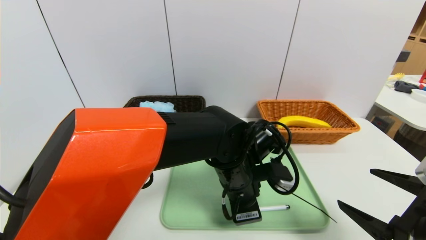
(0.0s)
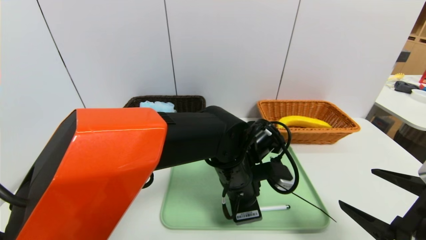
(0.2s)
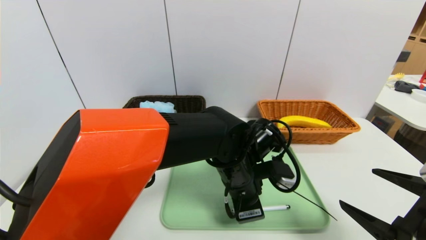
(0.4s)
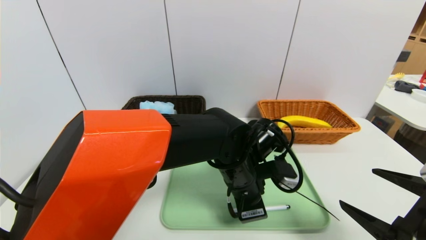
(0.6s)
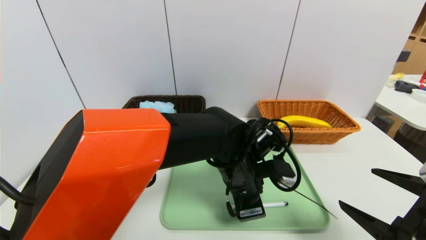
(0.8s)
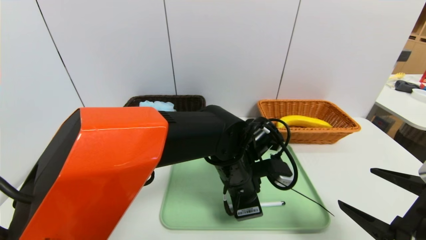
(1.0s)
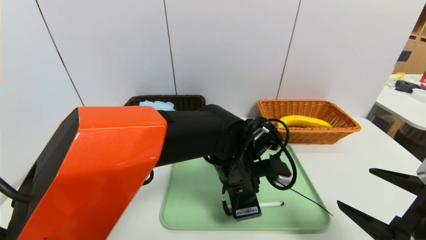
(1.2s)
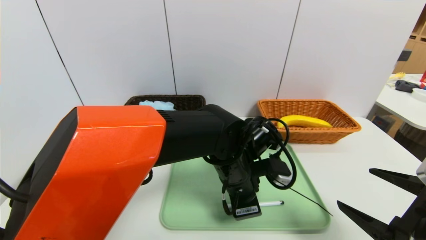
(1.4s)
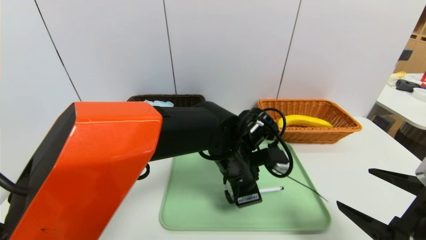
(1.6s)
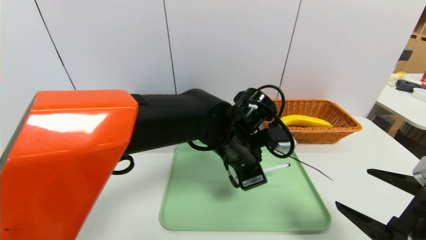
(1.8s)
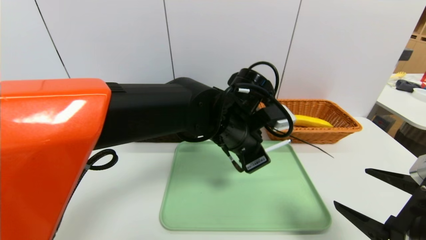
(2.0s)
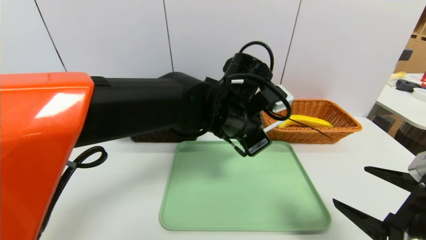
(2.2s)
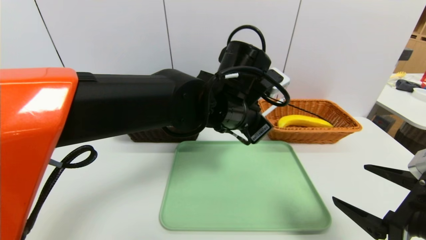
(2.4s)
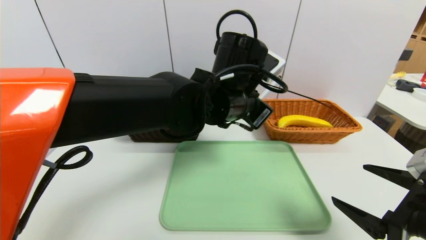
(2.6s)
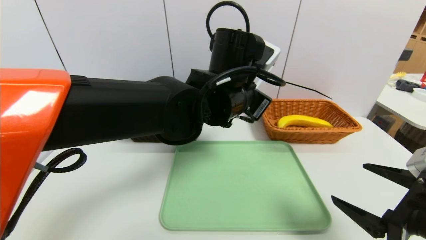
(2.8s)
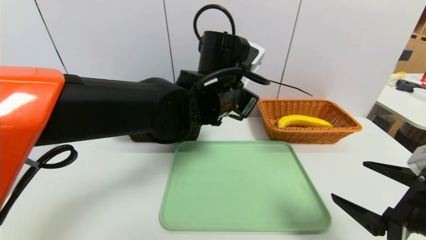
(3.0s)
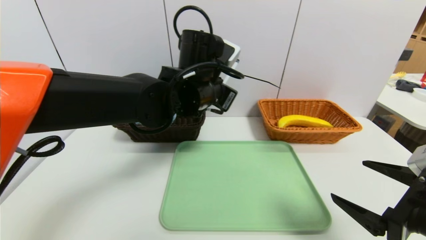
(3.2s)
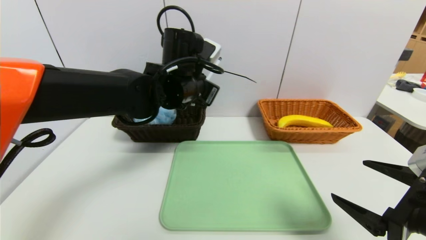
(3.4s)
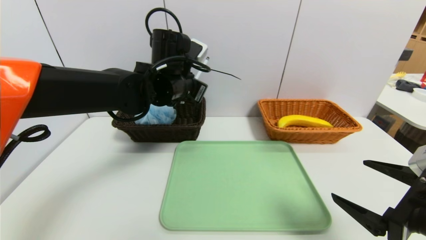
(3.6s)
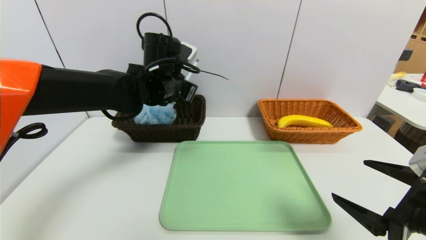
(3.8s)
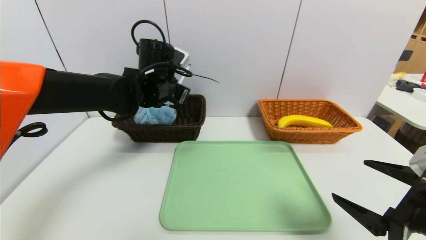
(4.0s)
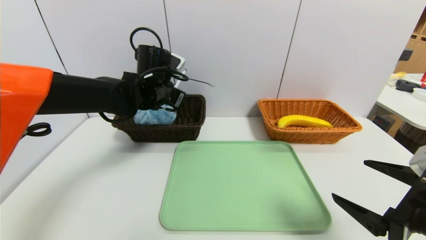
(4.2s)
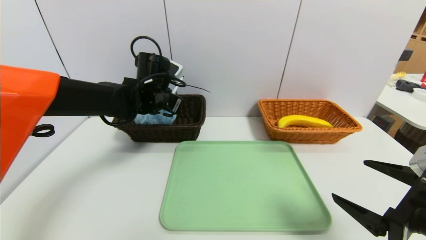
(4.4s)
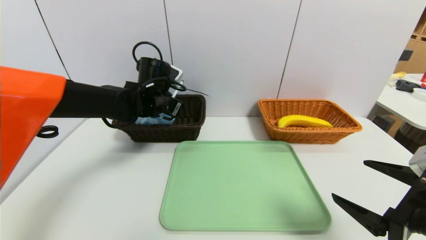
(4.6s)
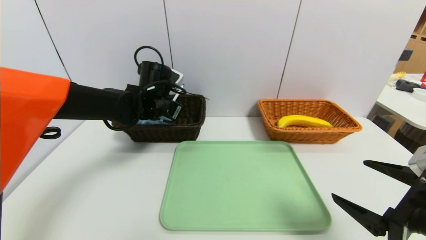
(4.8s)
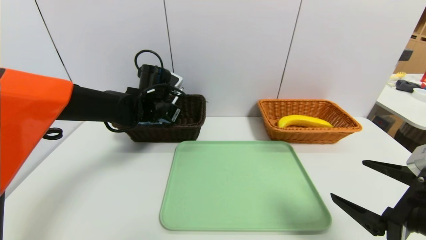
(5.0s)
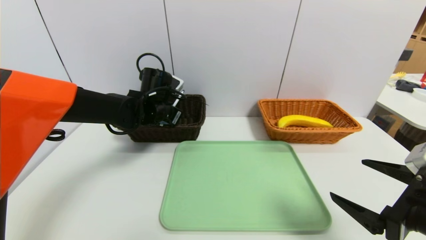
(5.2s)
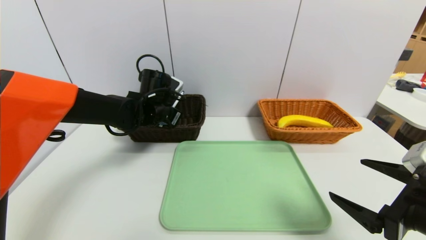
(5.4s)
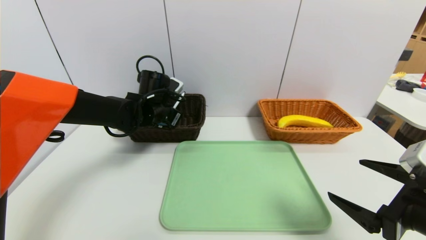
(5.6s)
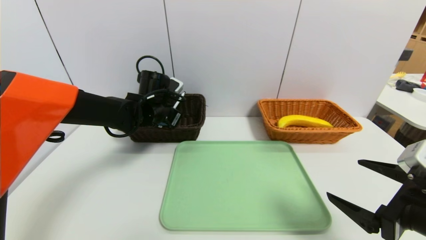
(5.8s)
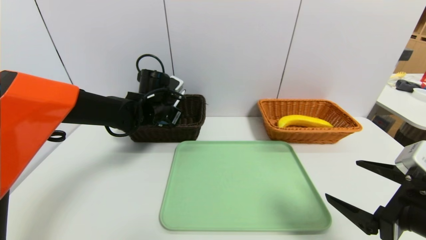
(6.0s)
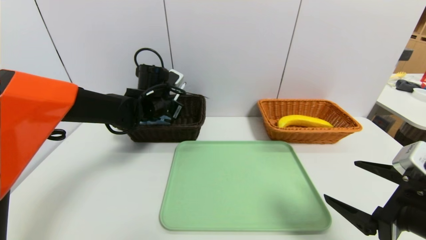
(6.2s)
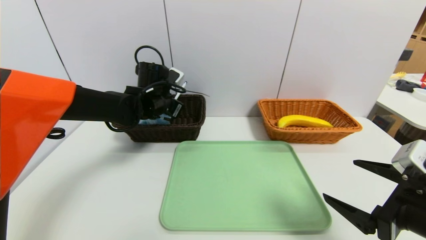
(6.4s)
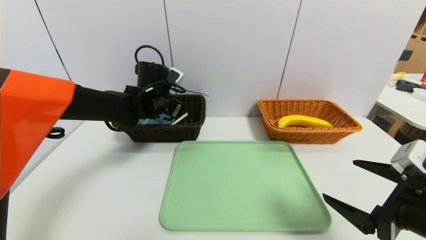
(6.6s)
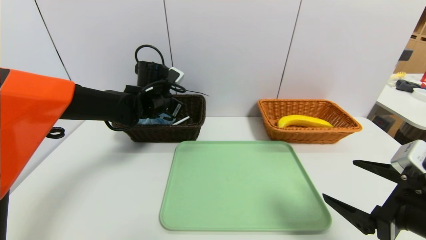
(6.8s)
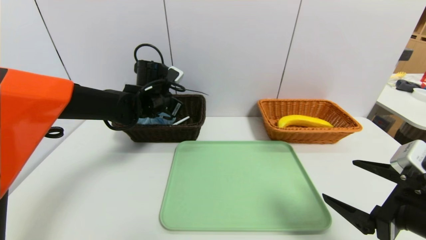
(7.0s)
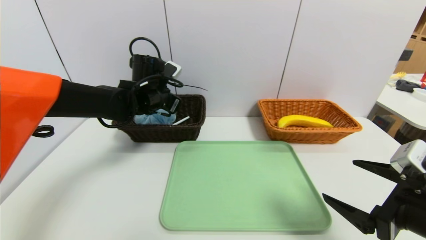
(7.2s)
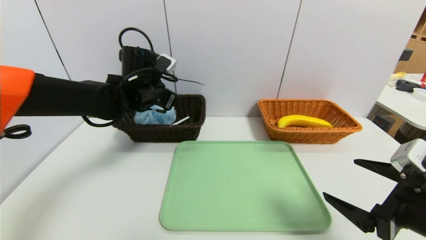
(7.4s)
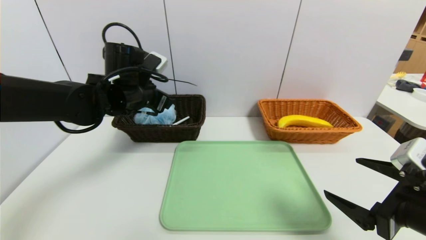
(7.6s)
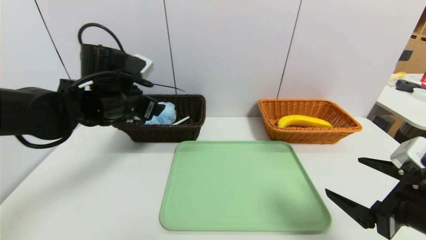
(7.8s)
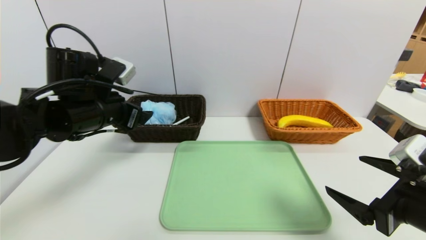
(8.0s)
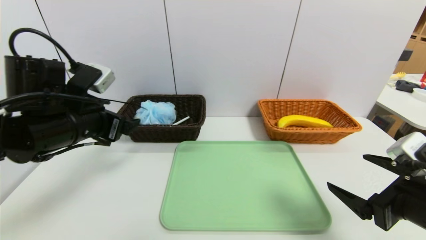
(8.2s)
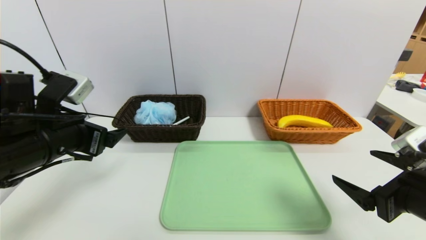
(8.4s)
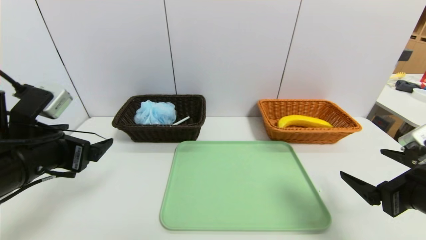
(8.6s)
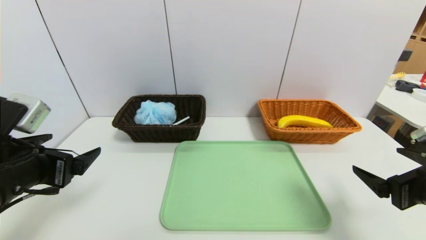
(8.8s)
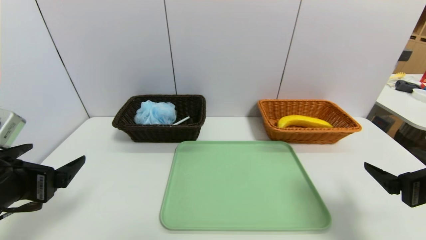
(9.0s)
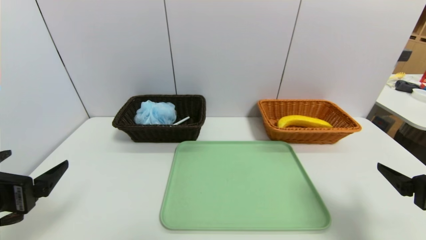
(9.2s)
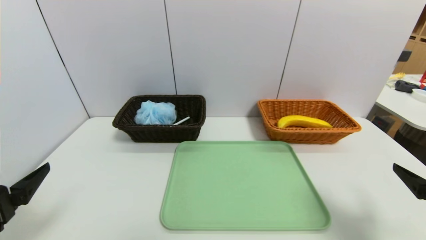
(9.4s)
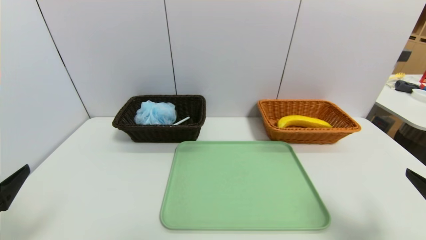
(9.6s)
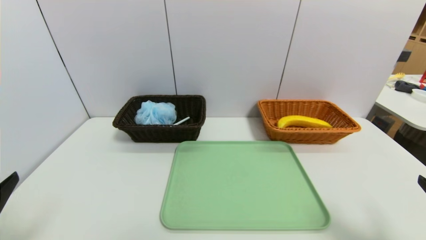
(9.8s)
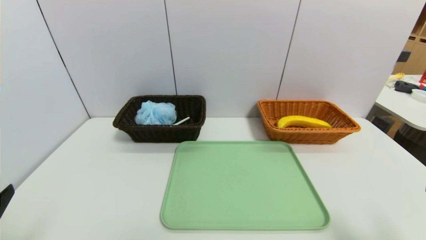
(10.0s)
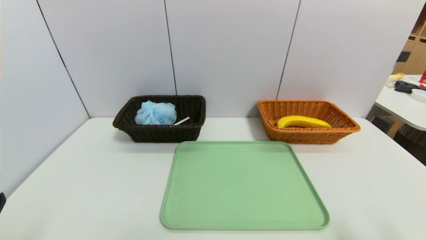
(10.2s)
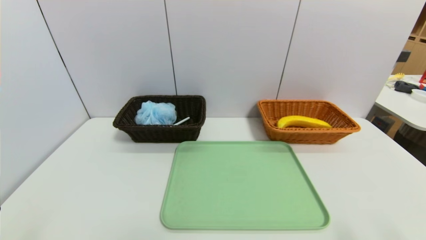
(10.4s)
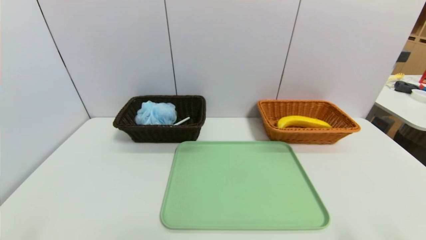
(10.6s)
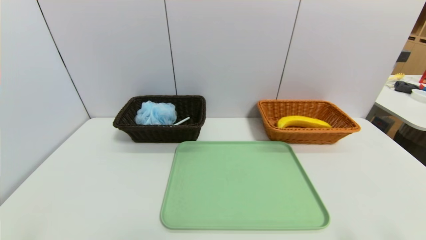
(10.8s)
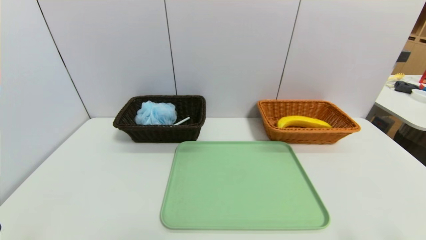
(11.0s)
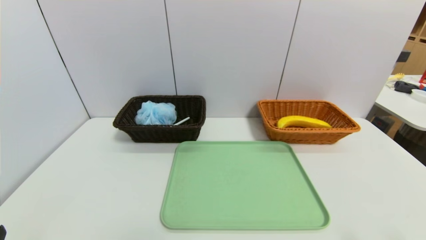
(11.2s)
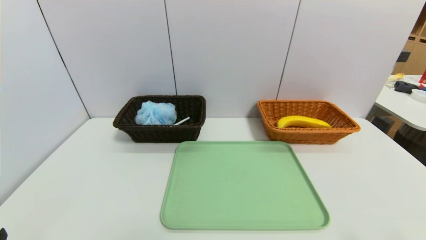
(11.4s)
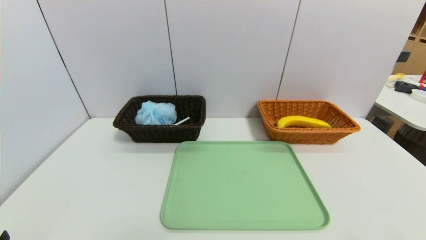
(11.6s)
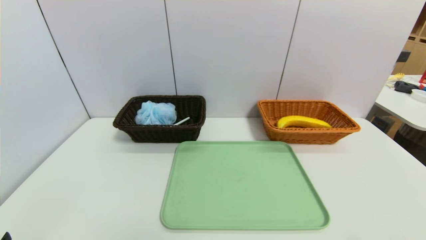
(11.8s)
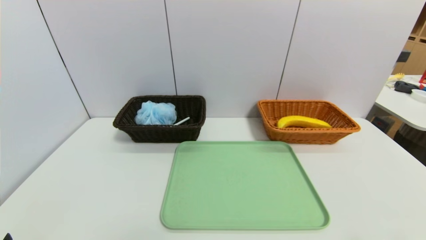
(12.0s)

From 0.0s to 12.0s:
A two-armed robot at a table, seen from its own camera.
Task of the whole recording: place the food in the right basket with the right gripper, and place the non food items in the left basket with the left gripper.
Step, from 0.0s to 7.0s: Grasp the black marker and put it in the left basket.
From 0.0s to 1.6s: The left gripper closes its fingers.
From 1.6s to 3.0s: The left gripper heads upward, covering roughly 10 cm.
From 3.0s to 4.4s: The left gripper shifts some 15 cm to the left and forward.
From 4.4s to 6.0s: There are only small adjustments of the grippers.
From 6.0s to 7.6s: The left gripper travels upward and backward by about 10 cm, and opens up.
From 7.6s to 9.0s: The left gripper is displaced backward and to the left by roughly 25 cm.
From 9.0s to 10.4s: The two grippers go approximately 10 cm backward.

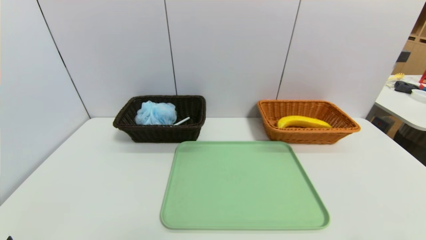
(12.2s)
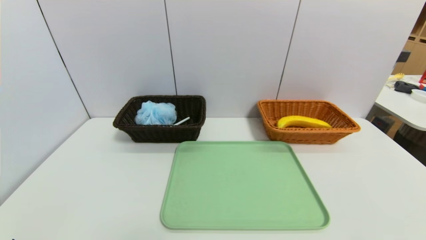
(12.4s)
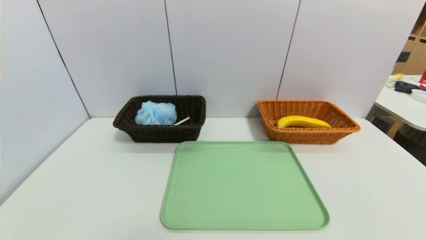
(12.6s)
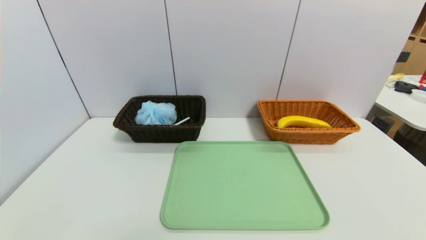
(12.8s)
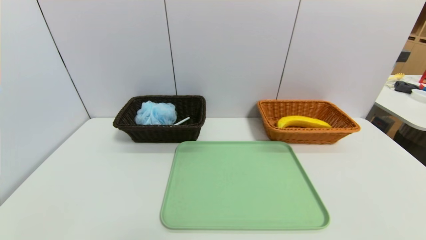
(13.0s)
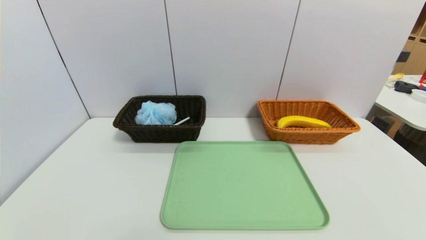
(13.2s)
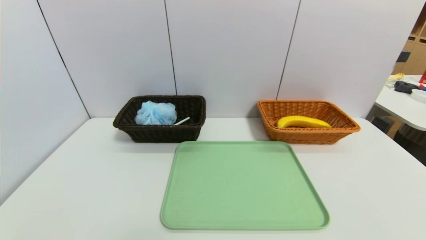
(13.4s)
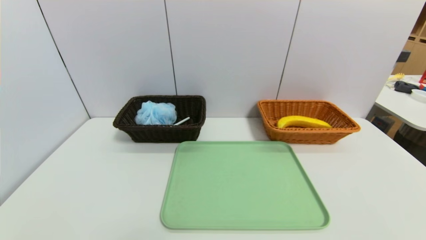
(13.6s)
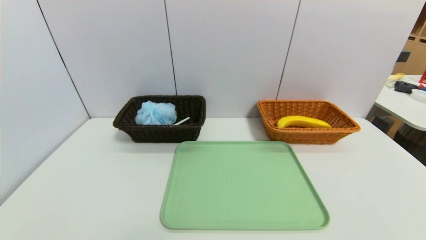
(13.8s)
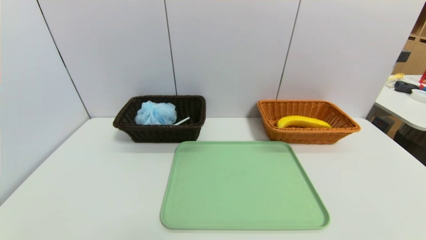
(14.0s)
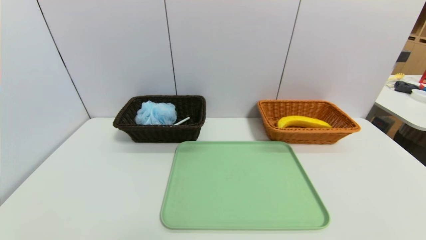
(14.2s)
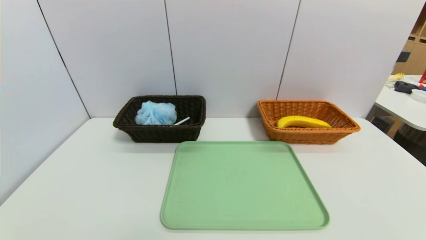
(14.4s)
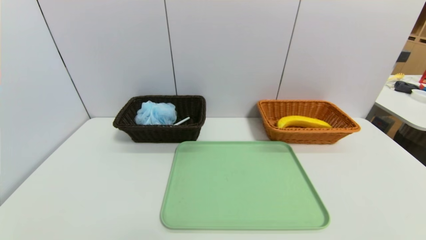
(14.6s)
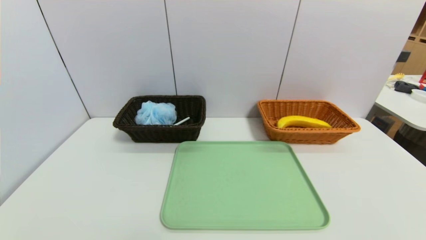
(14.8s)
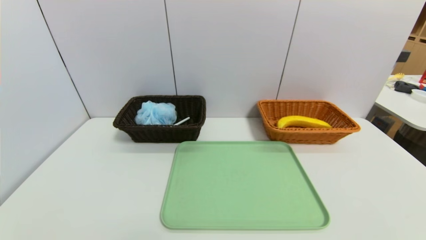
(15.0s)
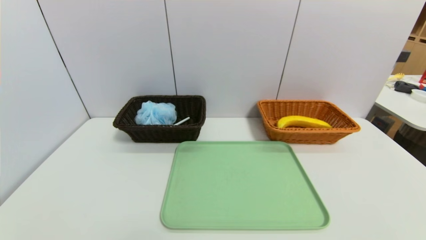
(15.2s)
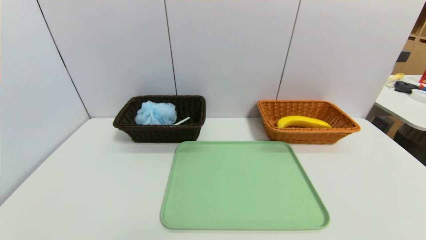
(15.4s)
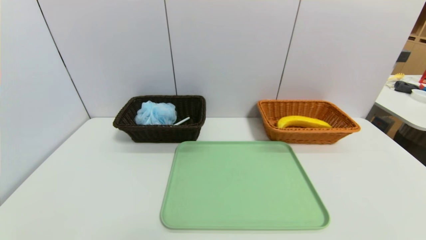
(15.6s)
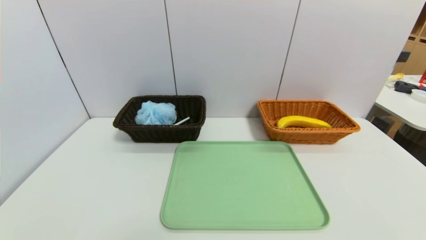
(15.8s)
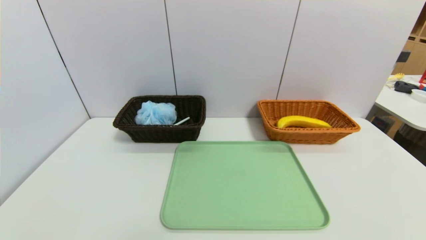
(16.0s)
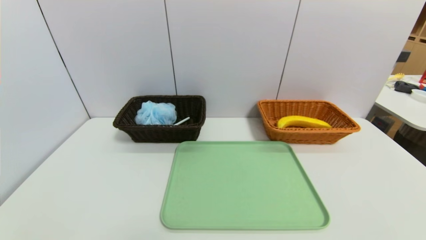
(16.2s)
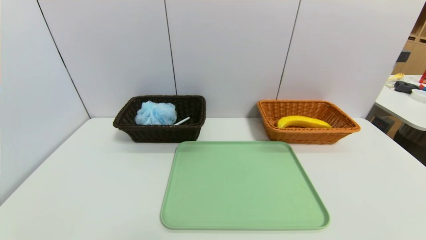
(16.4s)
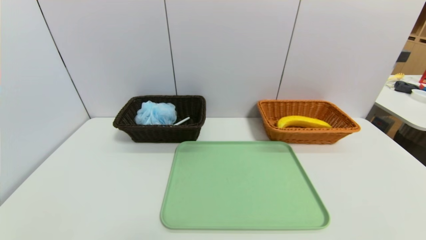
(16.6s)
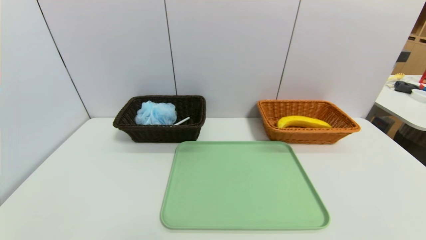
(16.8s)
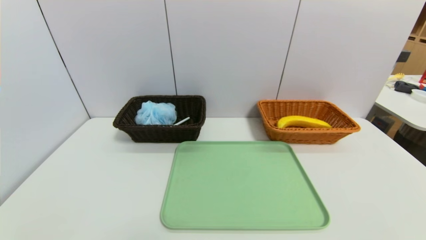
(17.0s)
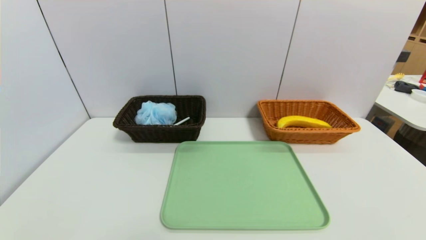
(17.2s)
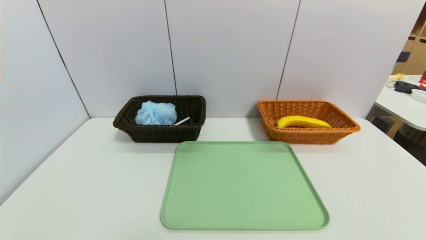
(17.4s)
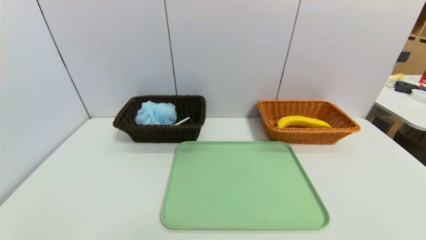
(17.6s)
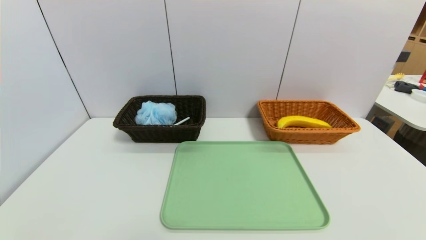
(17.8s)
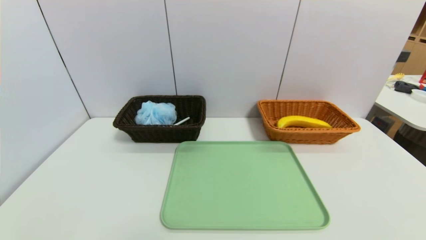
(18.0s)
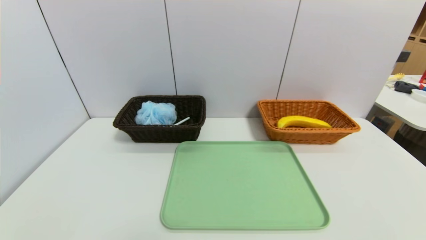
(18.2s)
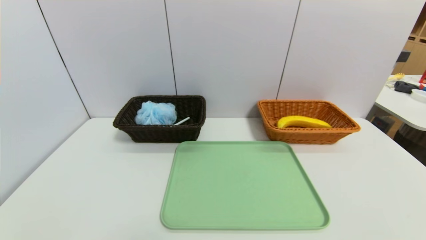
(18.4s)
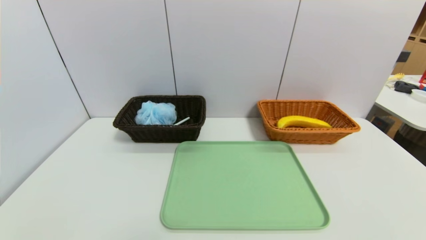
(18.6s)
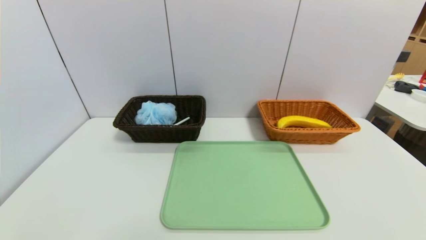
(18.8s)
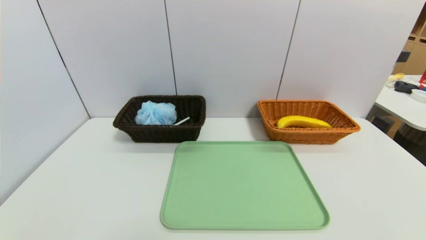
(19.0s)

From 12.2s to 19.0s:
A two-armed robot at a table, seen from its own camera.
Task of the whole recording: place the food in the right basket with the right gripper, and place the non food items in the left basket with the left gripper.
From 15.0s to 19.0s: Both grippers stay put.
